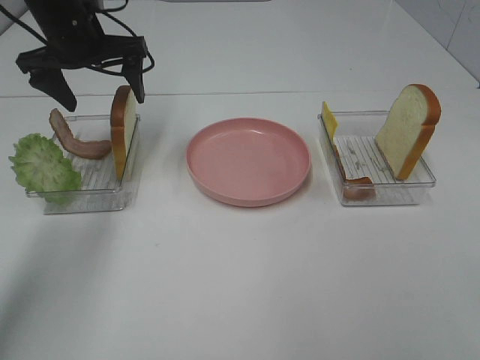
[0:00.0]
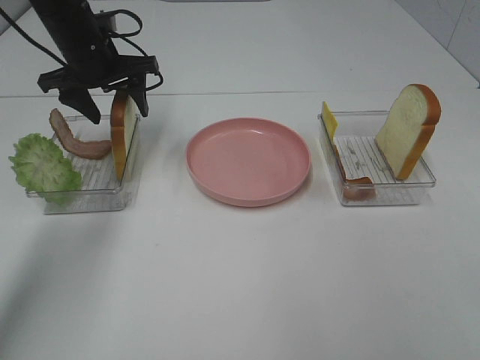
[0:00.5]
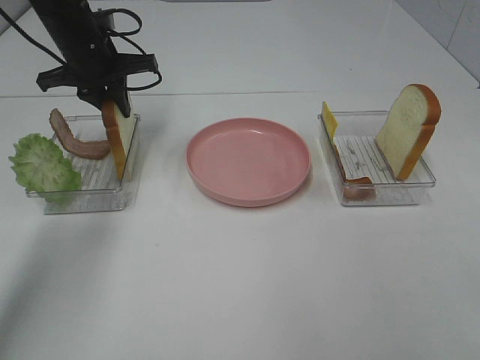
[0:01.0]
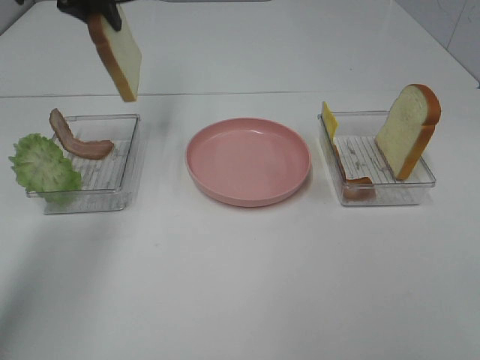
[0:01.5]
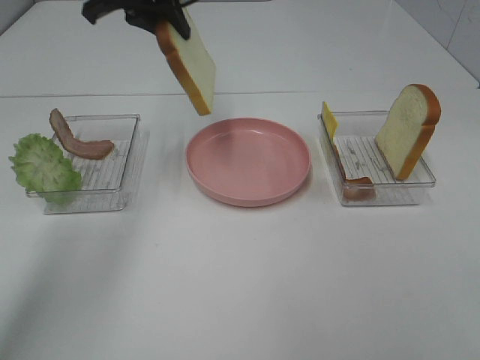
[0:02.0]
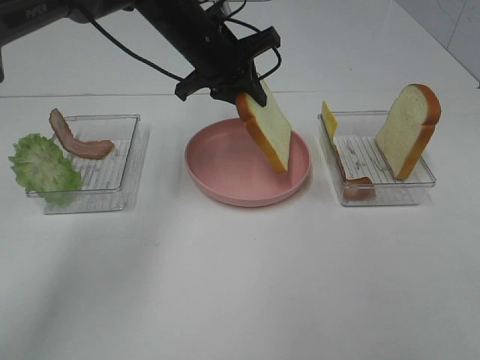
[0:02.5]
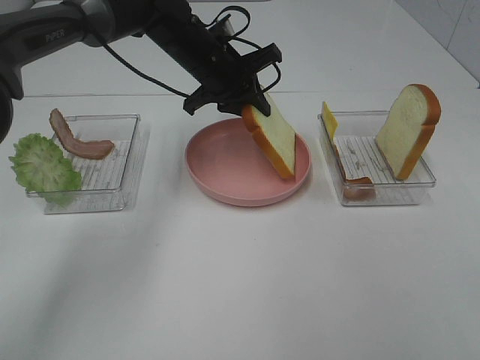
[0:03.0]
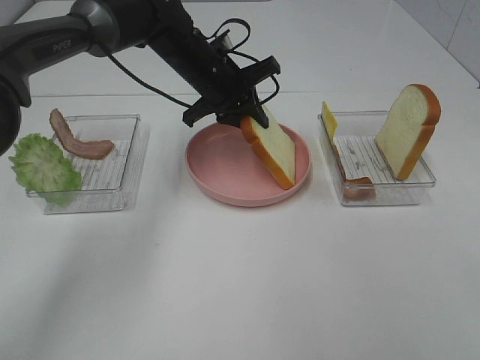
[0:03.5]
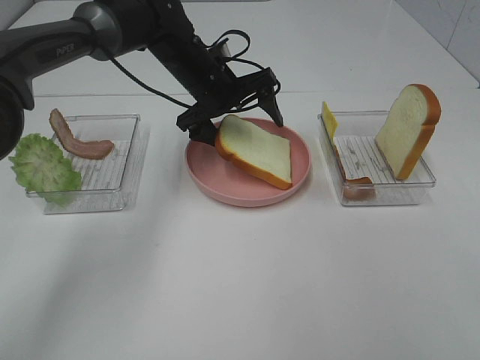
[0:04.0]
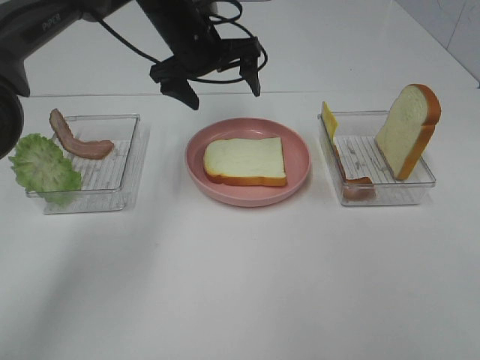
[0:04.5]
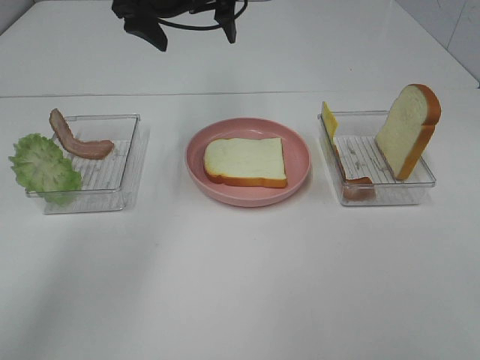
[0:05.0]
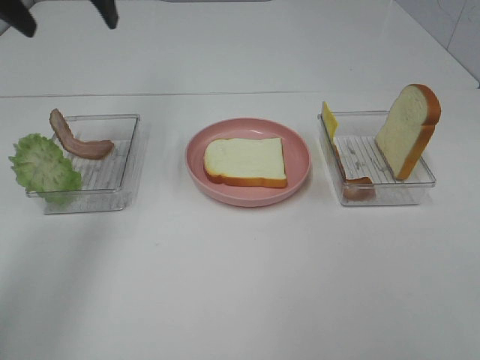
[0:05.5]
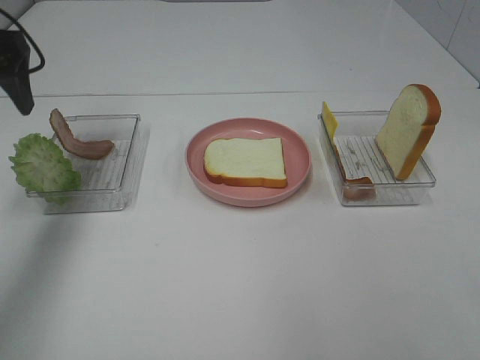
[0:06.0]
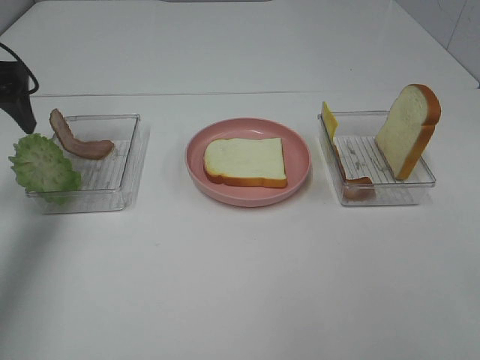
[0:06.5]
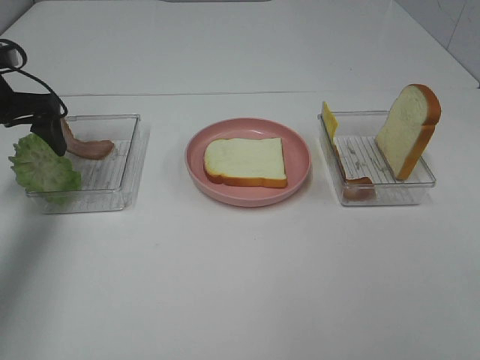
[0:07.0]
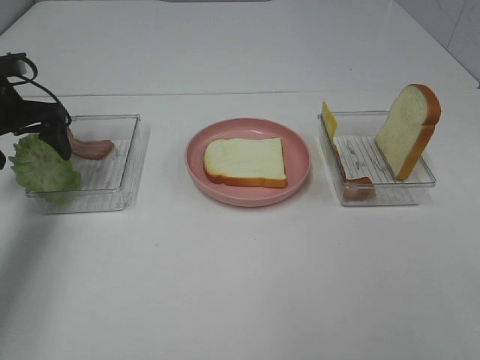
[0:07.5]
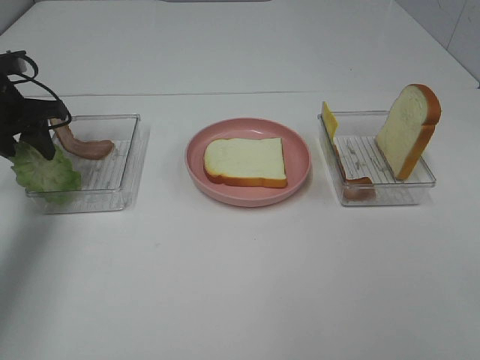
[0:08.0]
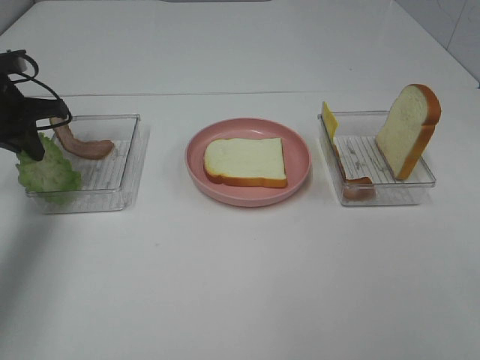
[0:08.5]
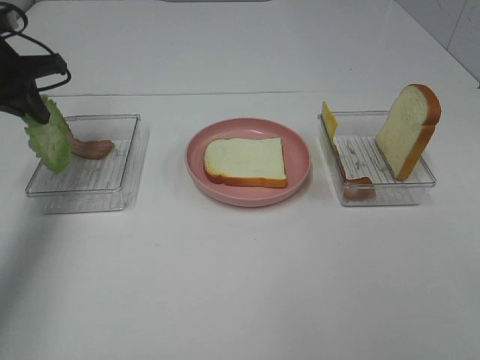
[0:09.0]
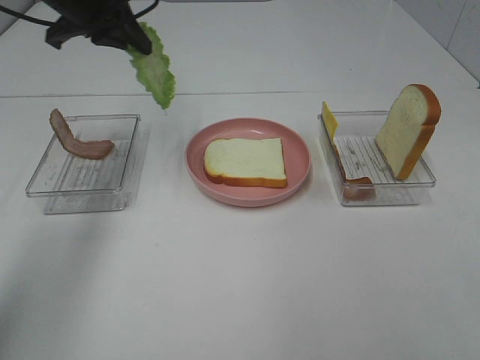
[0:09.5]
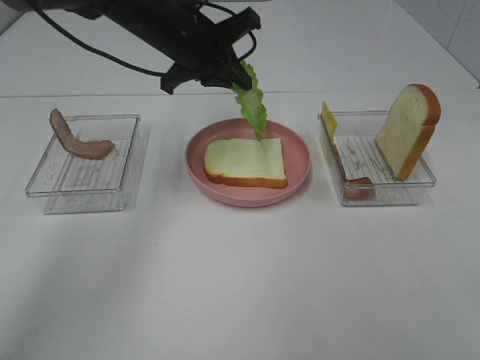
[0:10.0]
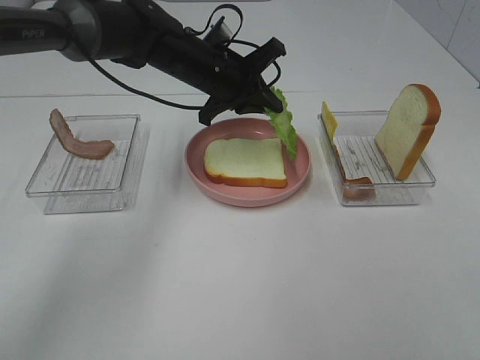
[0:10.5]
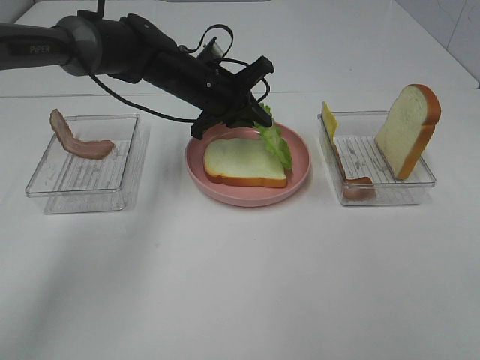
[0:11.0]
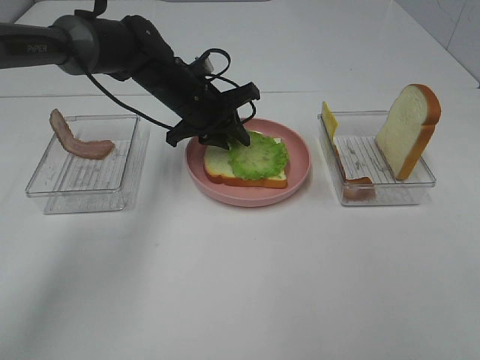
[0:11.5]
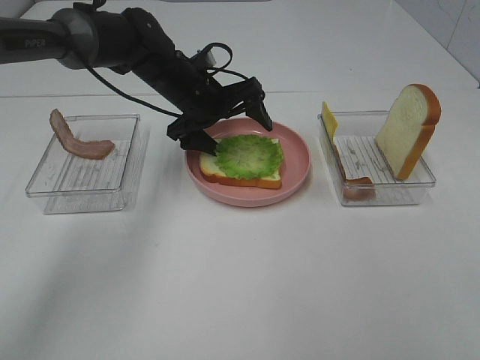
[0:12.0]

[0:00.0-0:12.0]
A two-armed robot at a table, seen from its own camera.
Task of the whole recording: Make sandwiches.
Step, 0:01.0 to 0:04.5: Left hand:place the bread slice on the plate.
Step, 0:05.0 to 0:08.5: Left hand:grab the lettuce slice.
0:00.0 to 0:02.0: The left gripper moves upward and to the right, roughly 10 cm, and closes.
0:02.0 to 0:04.0: The left gripper travels downward and to the right by some 15 cm, and opens its fingers.
0:04.0 to 0:06.0: The left gripper goes approximately 30 cm to the left, upward and backward.
0:06.0 to 0:08.0: The left gripper travels downward and forward by about 15 cm, and closes up.
0:08.0 to 0:10.0: The left gripper is displaced to the right by approximately 25 cm, and closes up.
0:10.0 to 0:12.0: The left gripper moves downward, roughly 10 cm, and opens up.

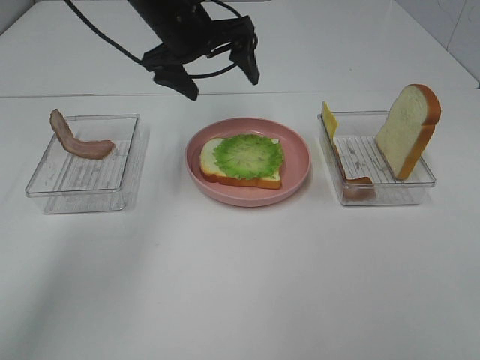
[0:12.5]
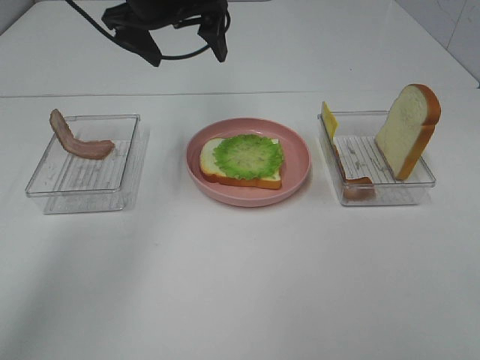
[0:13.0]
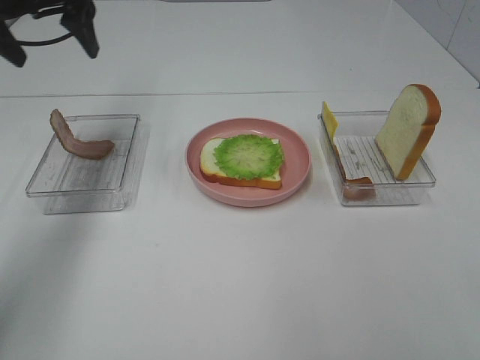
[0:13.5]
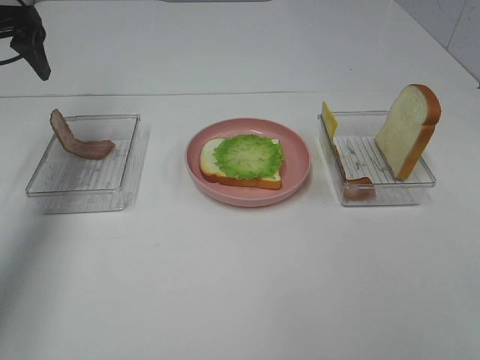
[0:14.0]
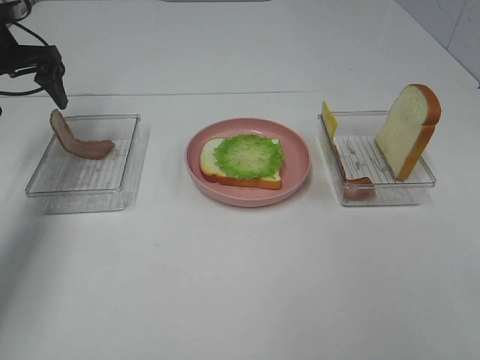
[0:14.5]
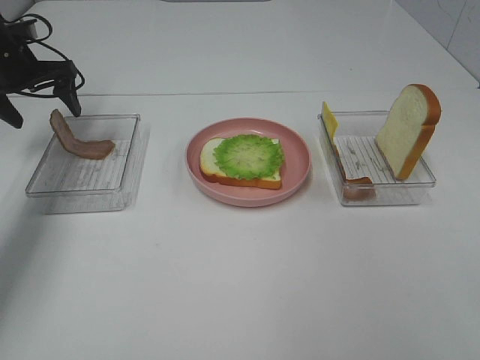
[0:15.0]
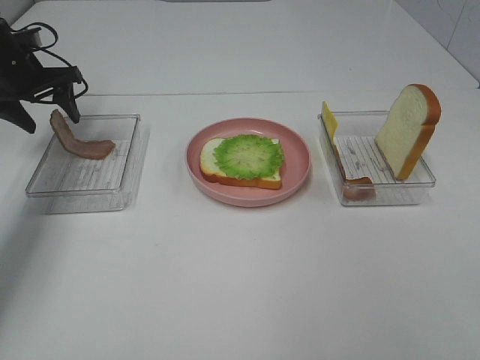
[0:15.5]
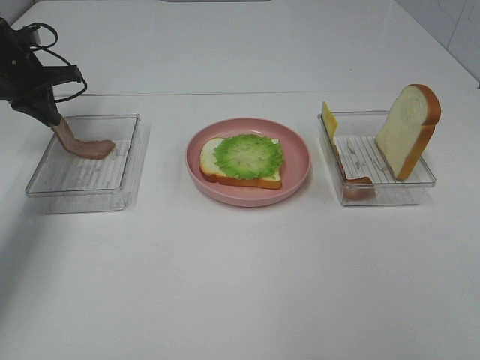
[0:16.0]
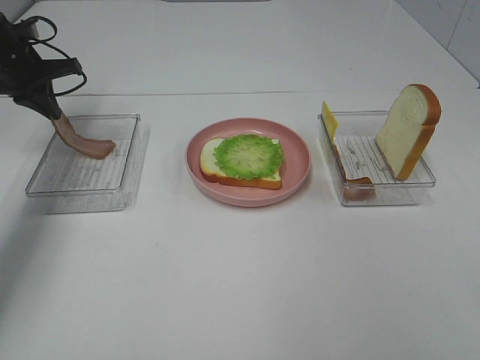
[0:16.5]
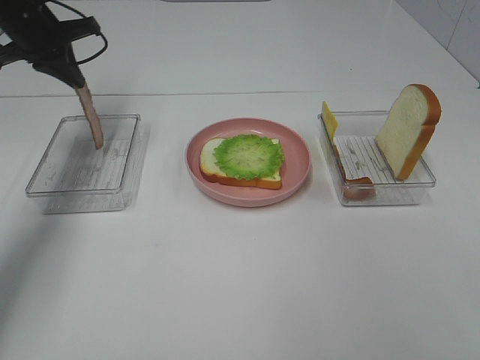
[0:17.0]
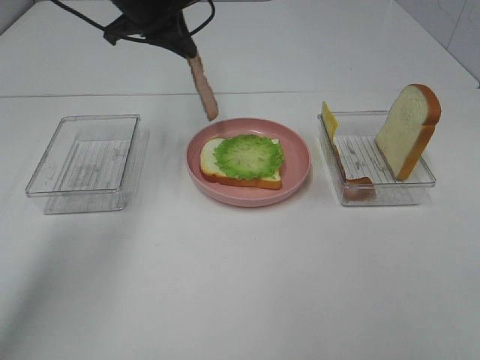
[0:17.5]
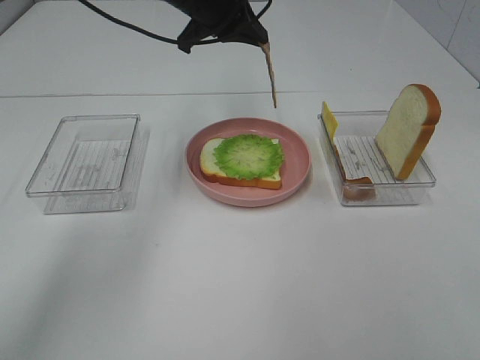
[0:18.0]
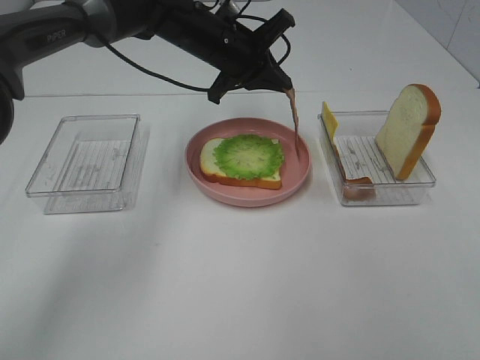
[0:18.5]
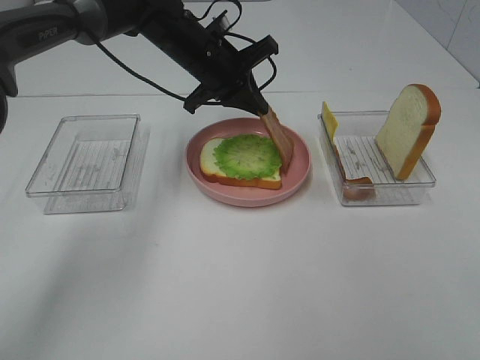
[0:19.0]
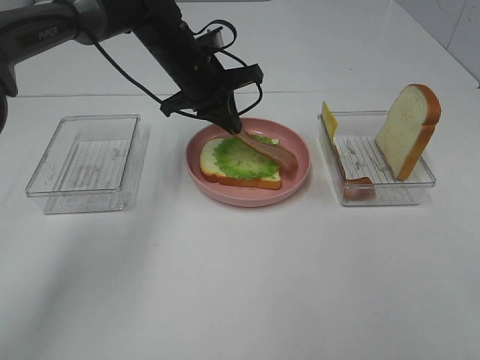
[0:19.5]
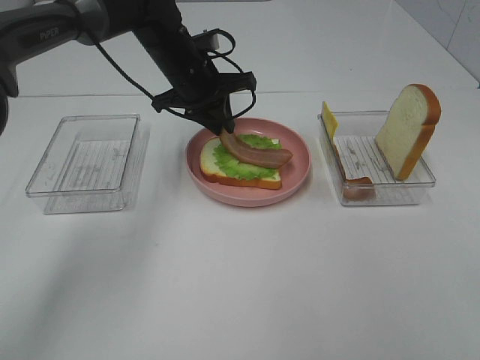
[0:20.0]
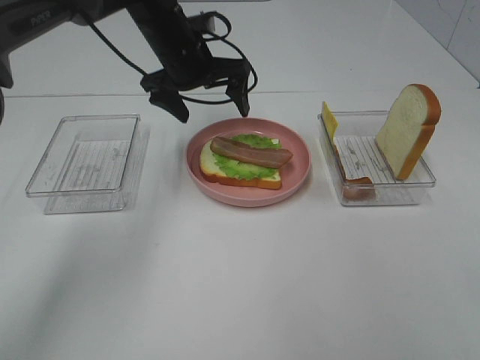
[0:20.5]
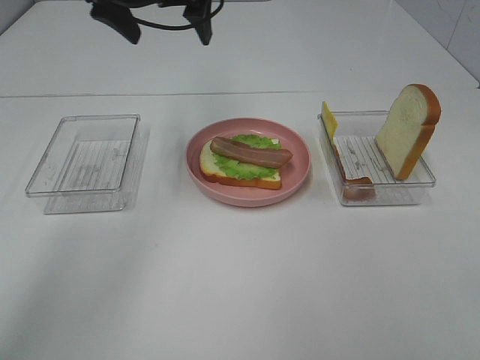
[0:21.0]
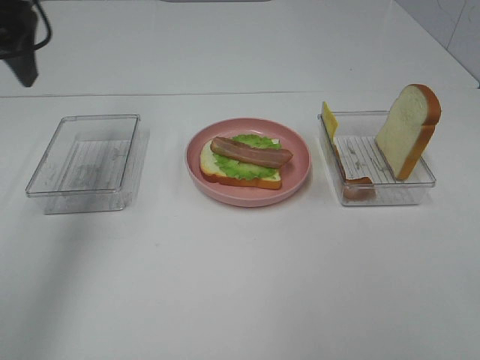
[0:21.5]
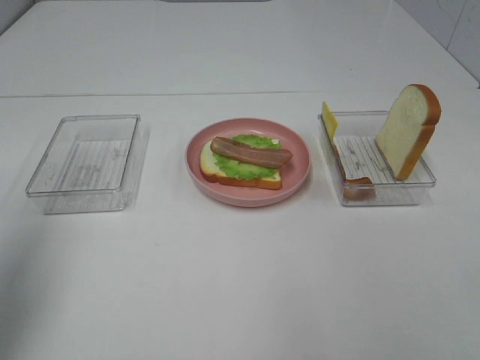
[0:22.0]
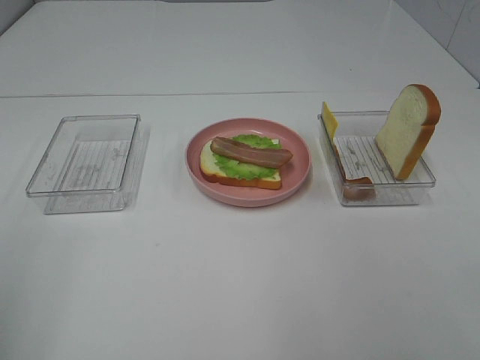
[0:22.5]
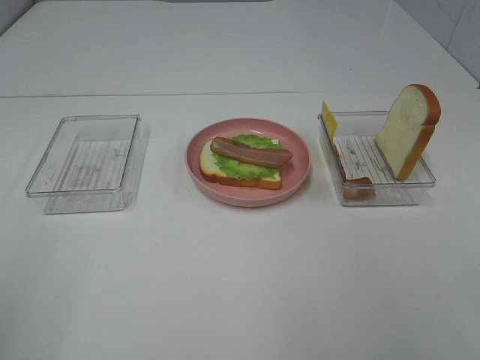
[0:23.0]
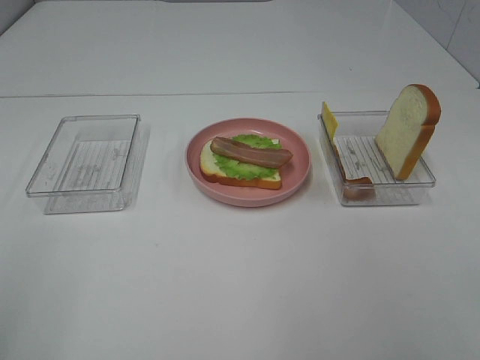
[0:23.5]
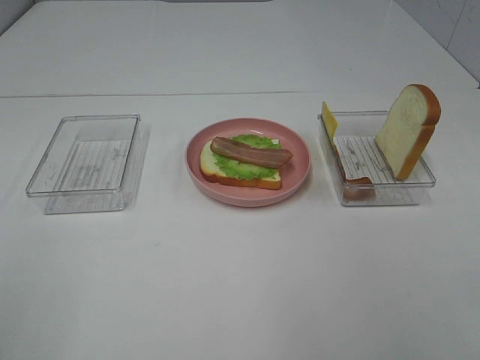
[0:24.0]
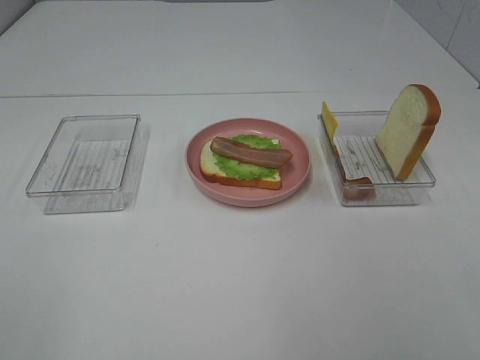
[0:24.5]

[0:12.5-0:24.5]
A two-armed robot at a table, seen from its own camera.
Task of the whole recording: Make sandwiches.
Step, 0:12.5 to 0:16.5: Left hand:grab the bacon.
Step, 0:17.0 to 0:20.0: Left hand:place bacon on lettuce slice.
0:12.5 to 0:14.5: The left gripper shifts approximately 25 cm to the left.
0:14.5 to 0:16.5: The left gripper closes.
0:16.5 to 0:18.5: The left gripper moves to the right, approximately 30 cm.
0:18.5 to 0:20.5: The left gripper goes about 5 cm to the left, and opens its fingers.
0:20.5 to 0:22.5: The left gripper moves backward and to the left, approximately 50 cm.

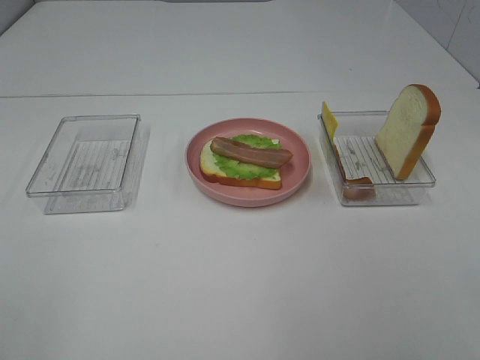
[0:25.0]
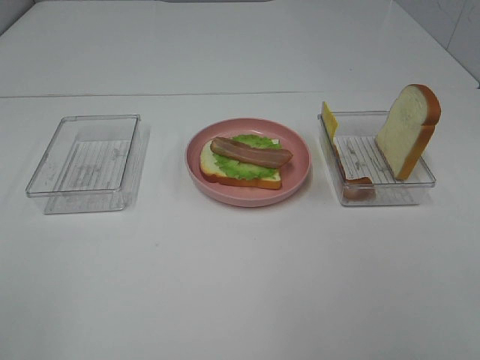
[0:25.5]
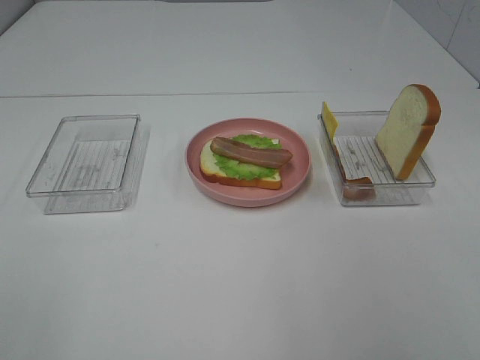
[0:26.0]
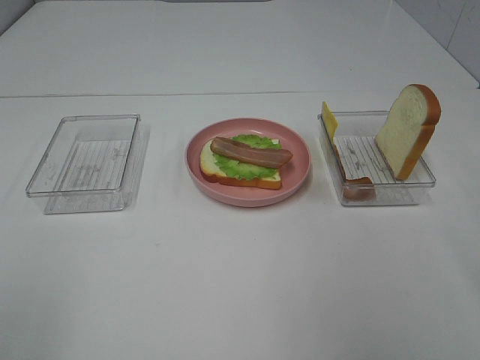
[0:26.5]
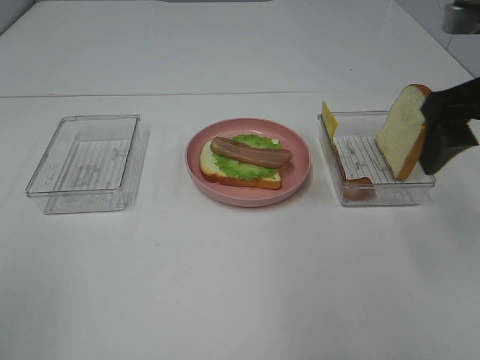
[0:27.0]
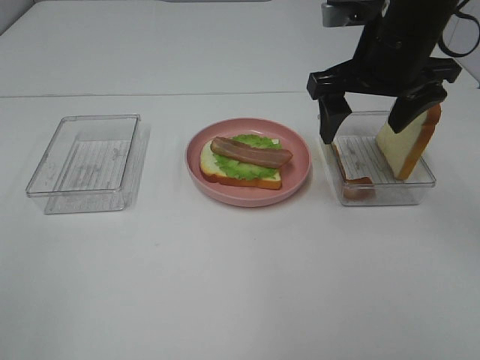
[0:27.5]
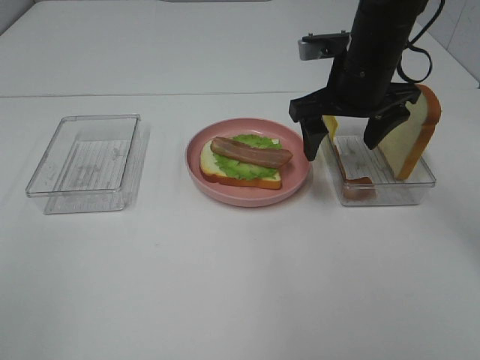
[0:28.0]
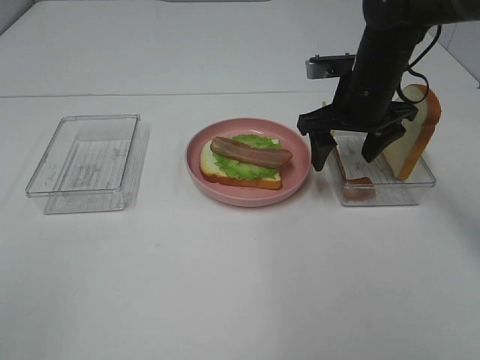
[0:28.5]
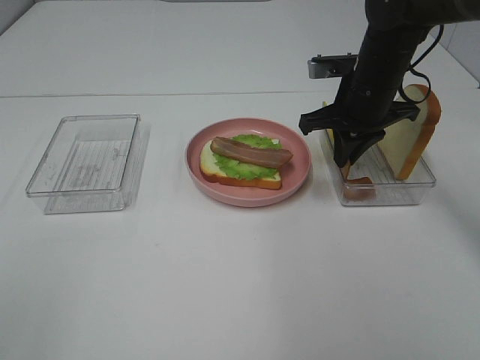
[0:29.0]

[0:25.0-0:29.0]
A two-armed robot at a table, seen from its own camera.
Task of the whole recording: Make sandwiches.
0:25.0 to 0:27.0: The right gripper is displaced forward by about 25 cm.
0:27.0 to 0:29.0: The right gripper goes roughly 20 cm forward, downward and to the left, and closes its fingers.
